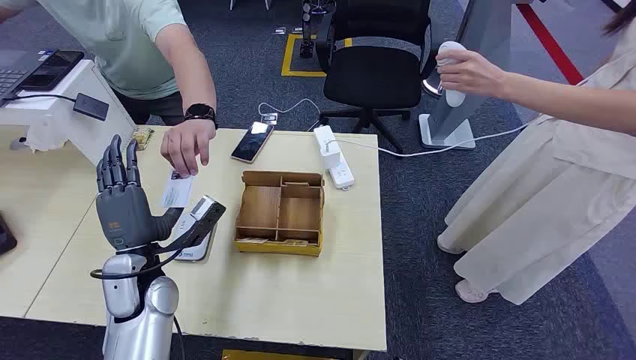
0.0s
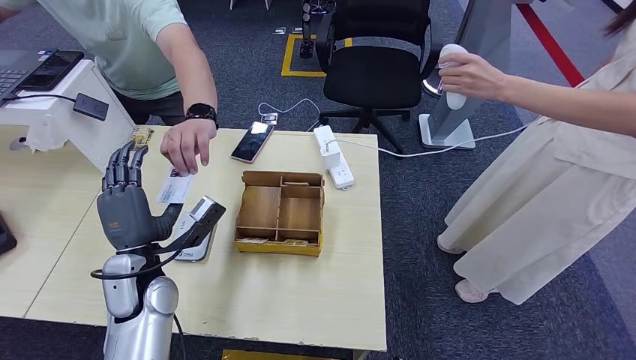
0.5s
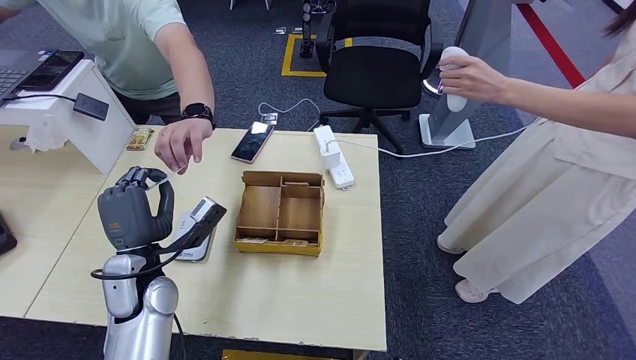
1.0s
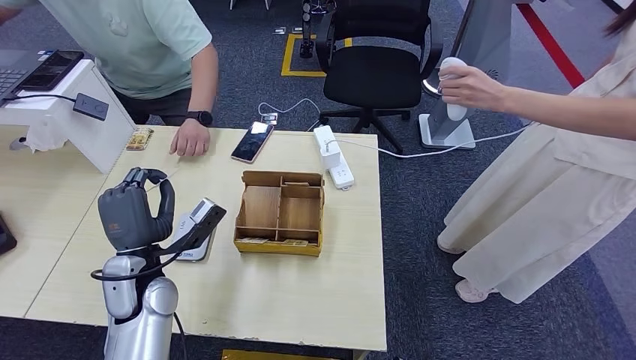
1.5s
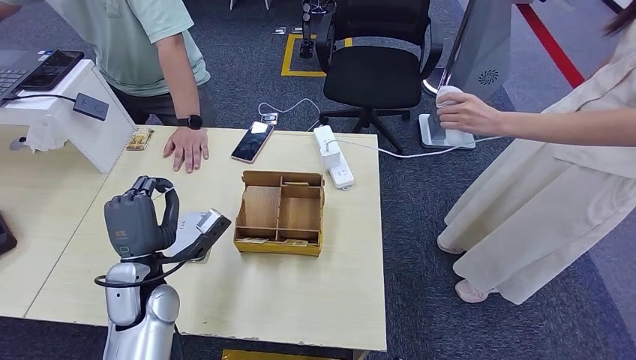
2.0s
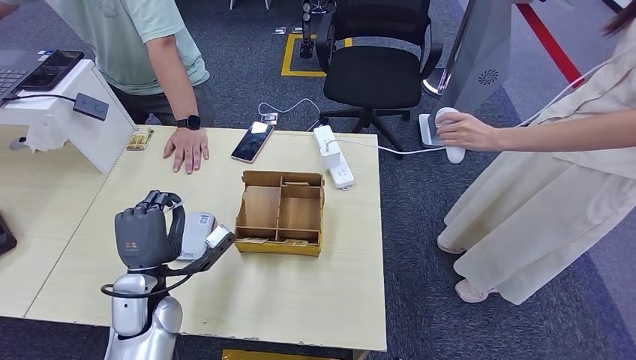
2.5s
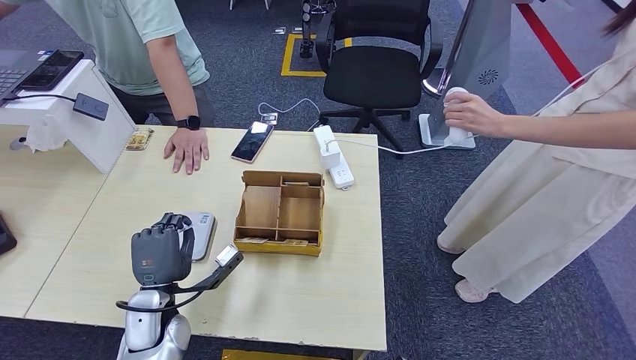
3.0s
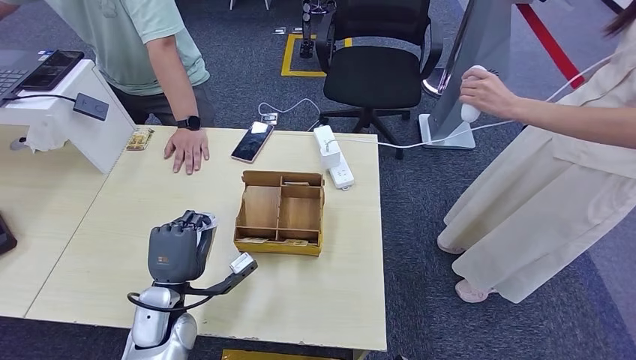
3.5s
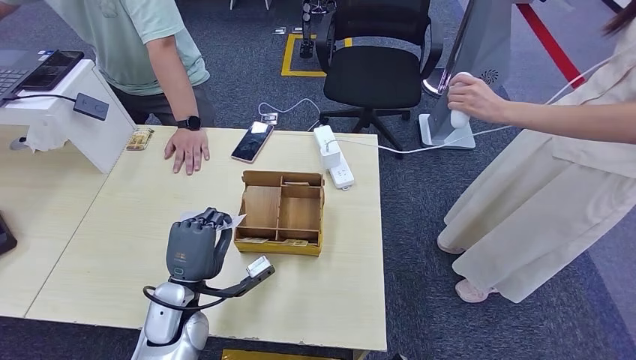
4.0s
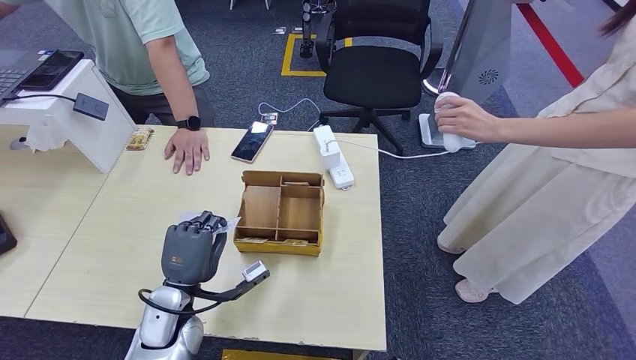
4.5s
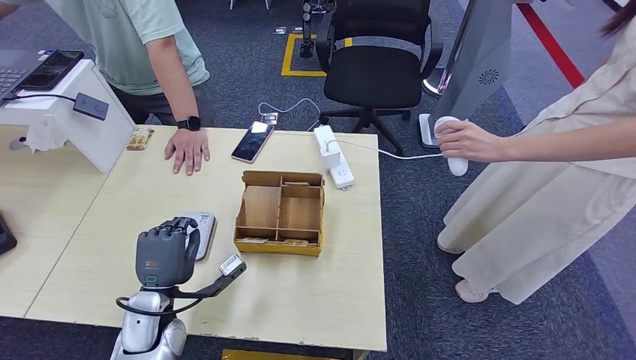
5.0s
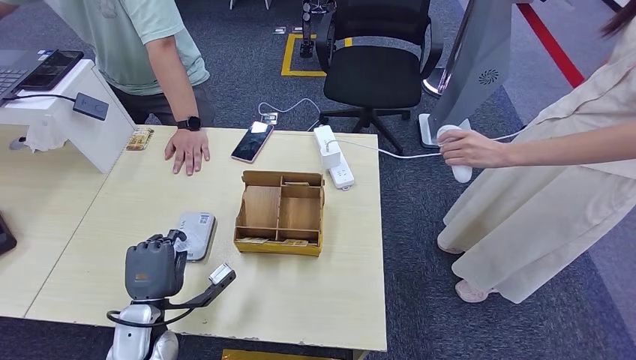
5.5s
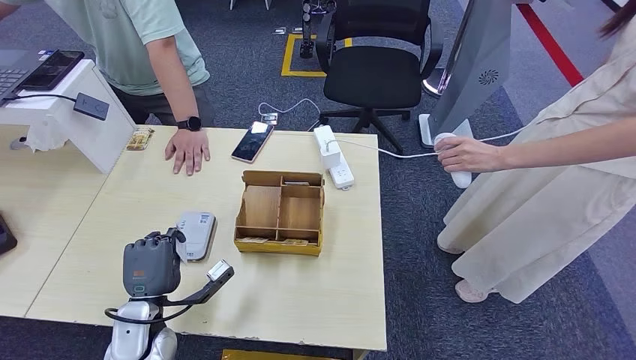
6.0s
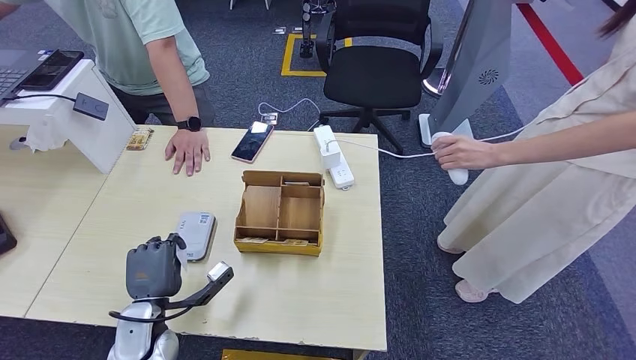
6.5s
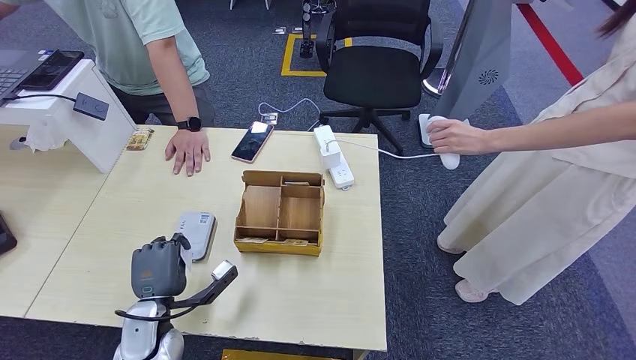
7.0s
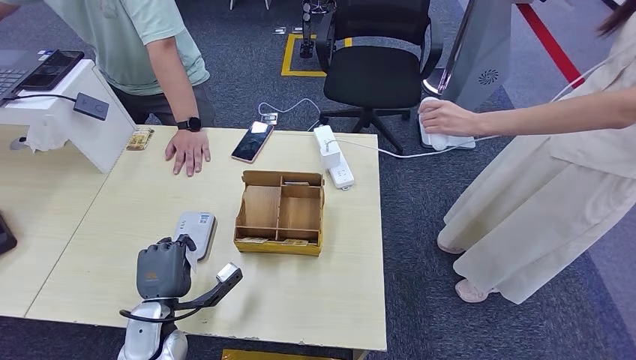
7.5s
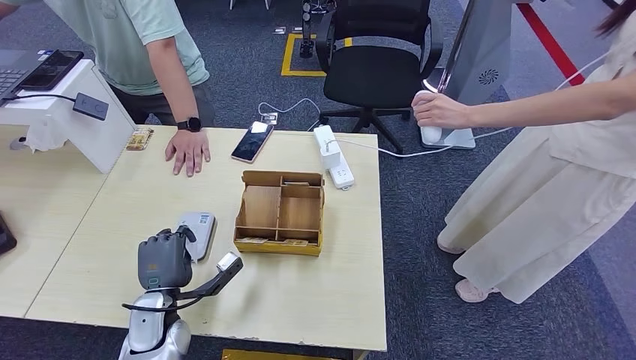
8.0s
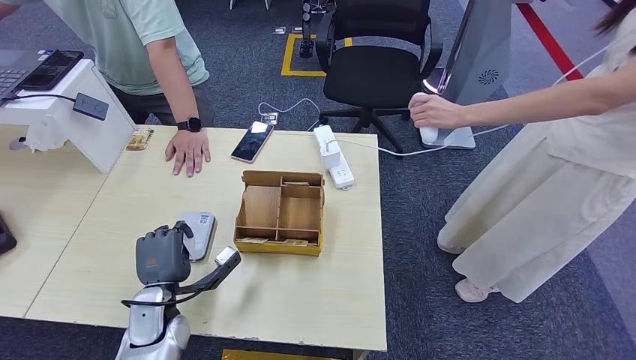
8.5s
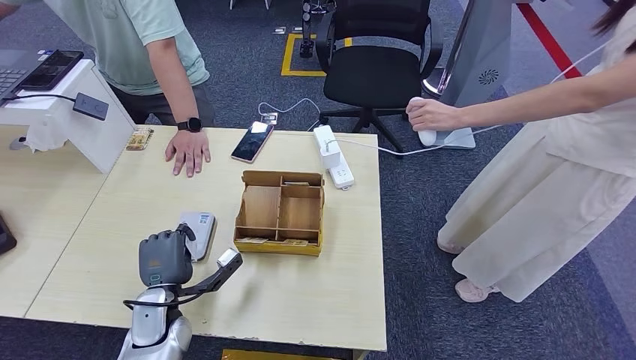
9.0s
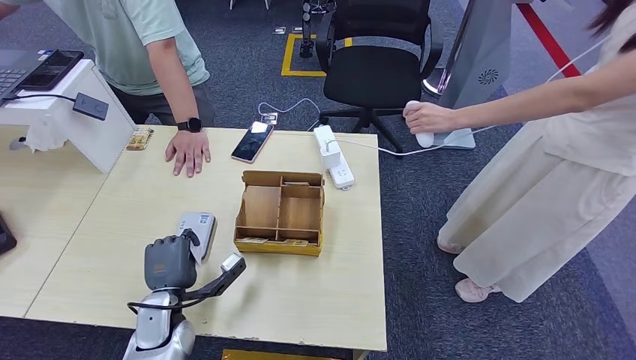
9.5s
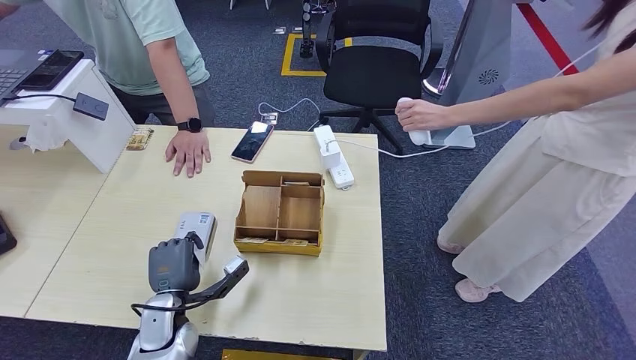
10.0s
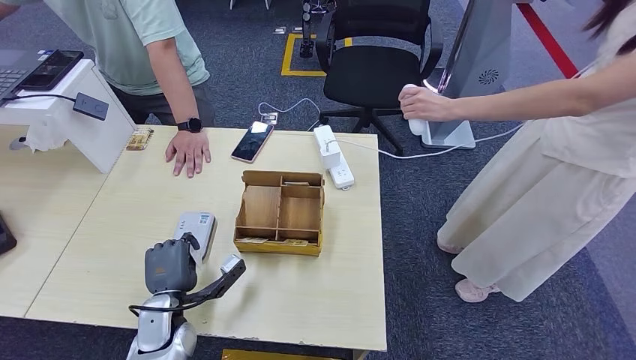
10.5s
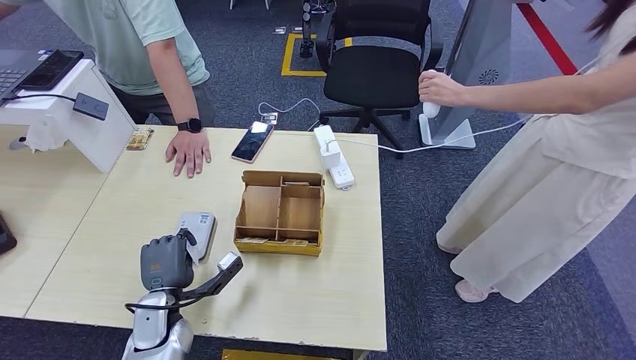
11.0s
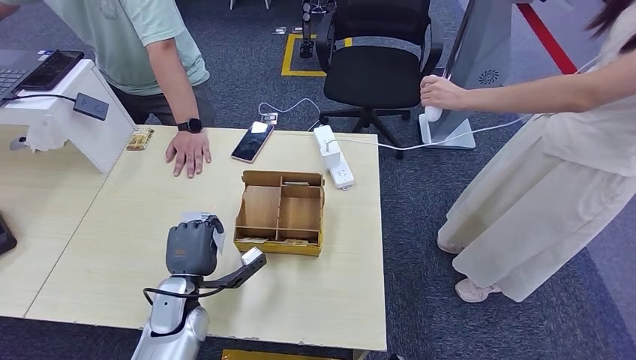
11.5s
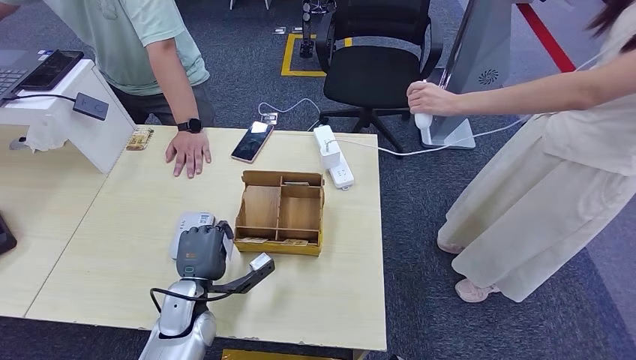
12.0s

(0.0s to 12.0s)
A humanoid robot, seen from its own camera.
Step, 0.0s - 1.5s: Take the ID card from the person's hand.
Step, 2.0s - 10.5s: Place the ID card on the card reader.
2.0s - 4.0s: The left hand moves downward, some 5 cm.
4.0s - 6.0s: The left hand is displaced to the left by roughly 5 cm.
6.0s - 10.0s: The hands make only small movements.
10.0s - 12.0s: The hands stay close to where they were, moving slightly.

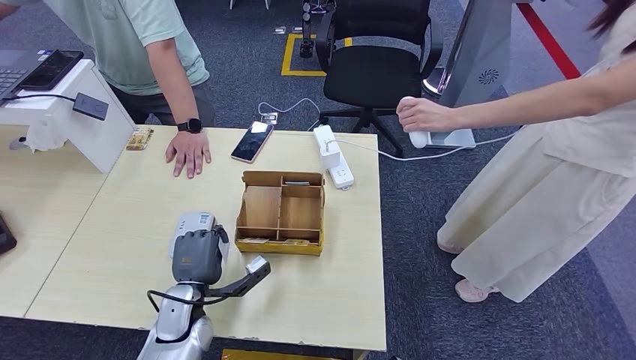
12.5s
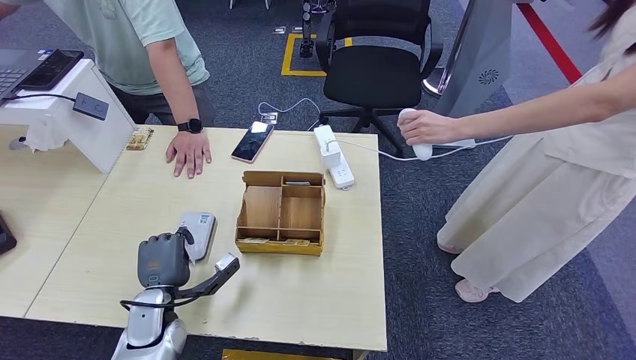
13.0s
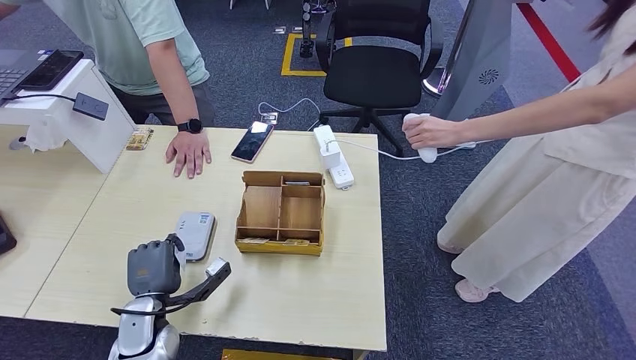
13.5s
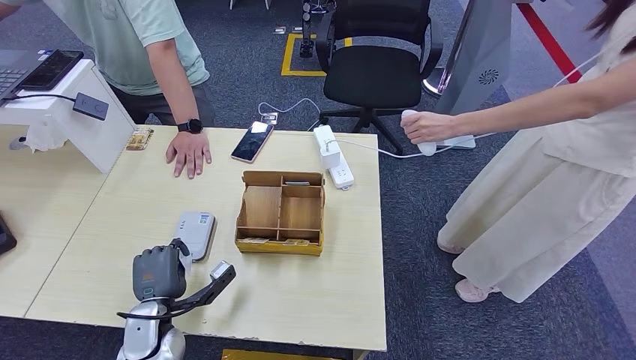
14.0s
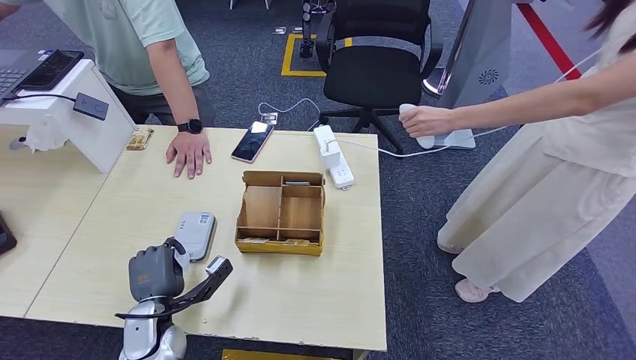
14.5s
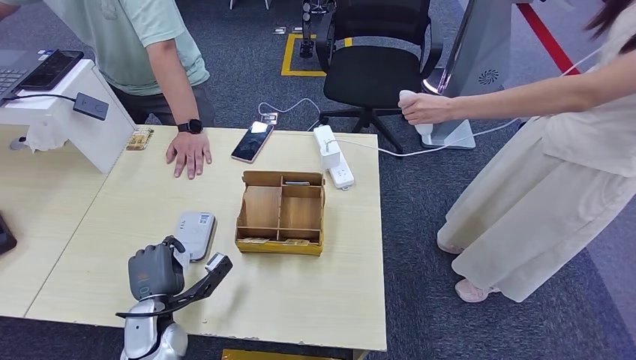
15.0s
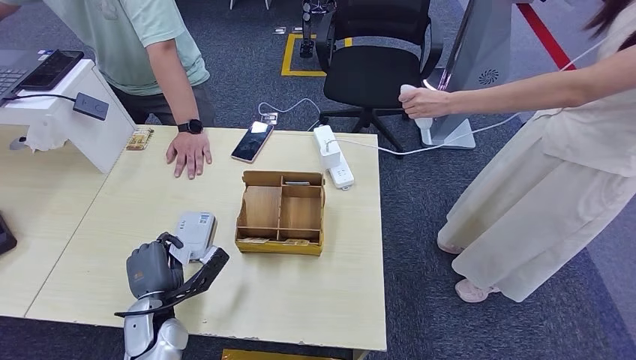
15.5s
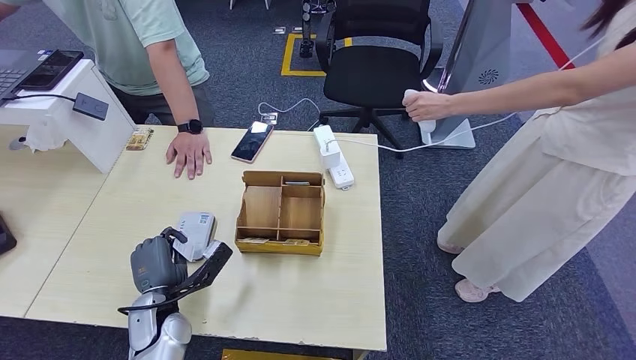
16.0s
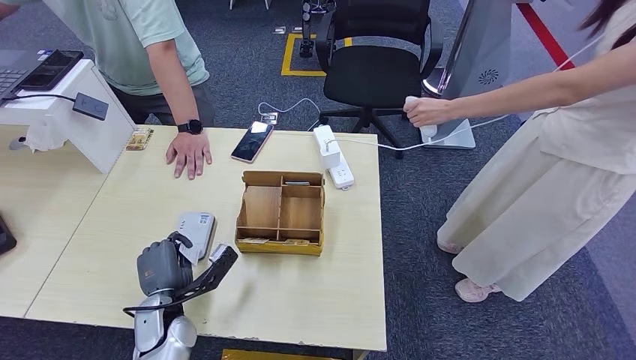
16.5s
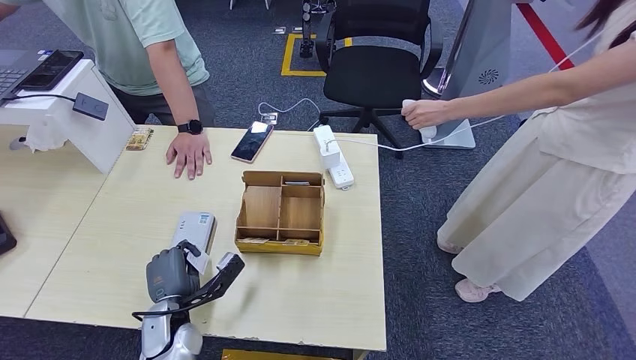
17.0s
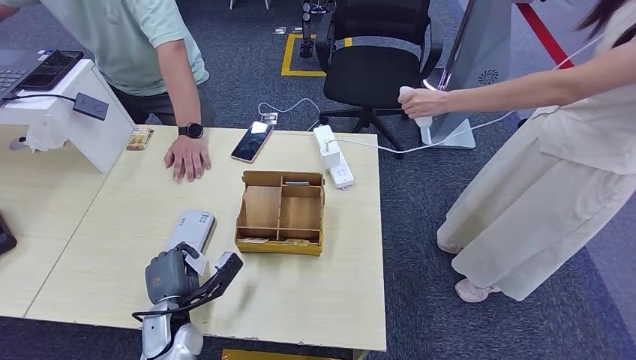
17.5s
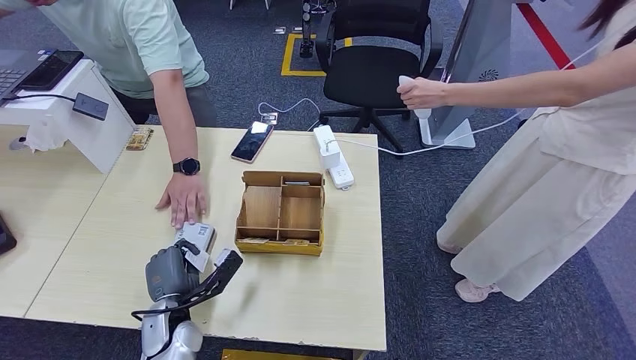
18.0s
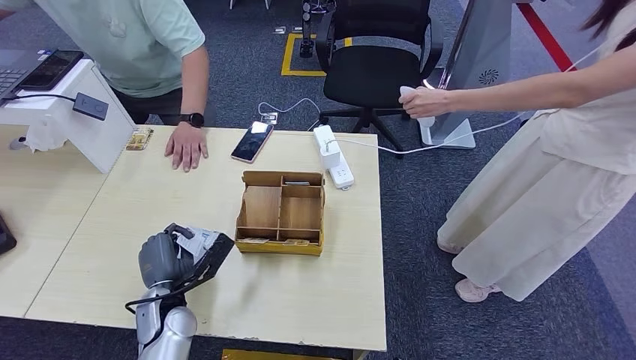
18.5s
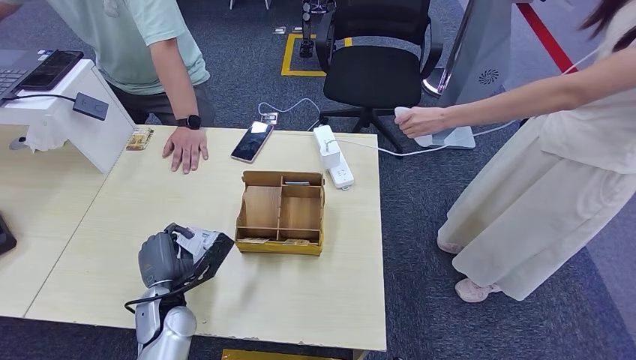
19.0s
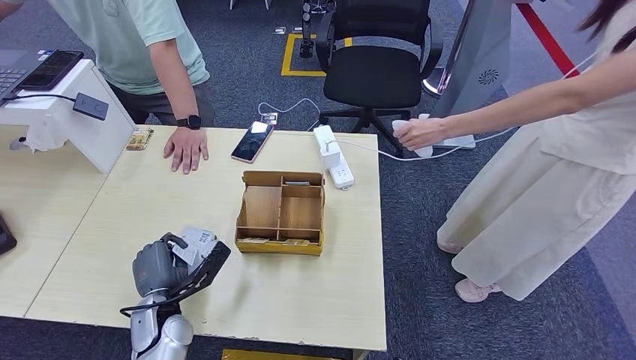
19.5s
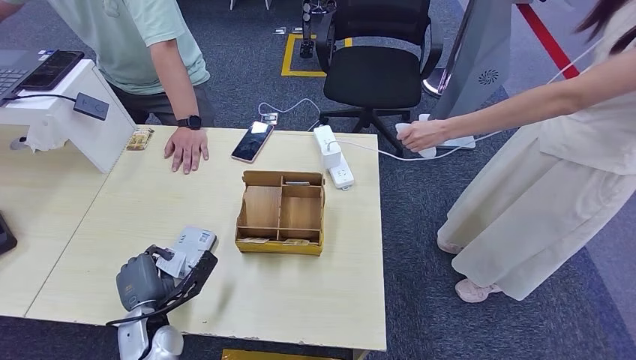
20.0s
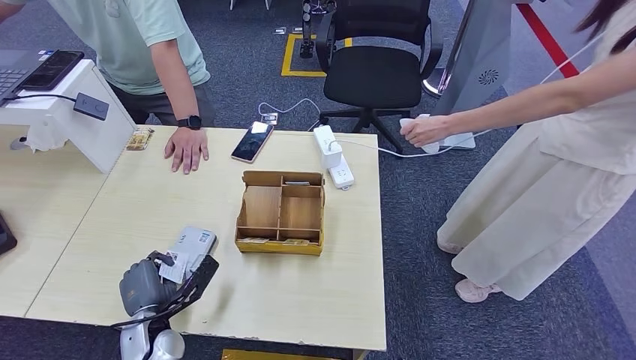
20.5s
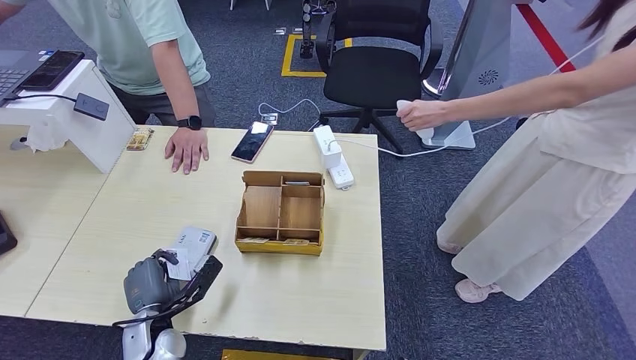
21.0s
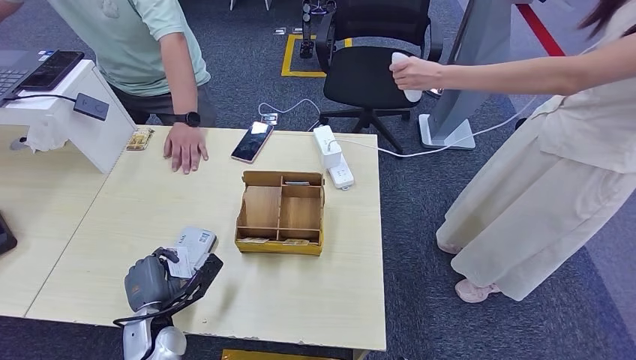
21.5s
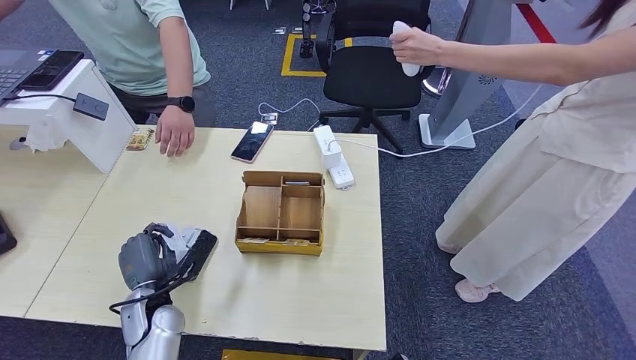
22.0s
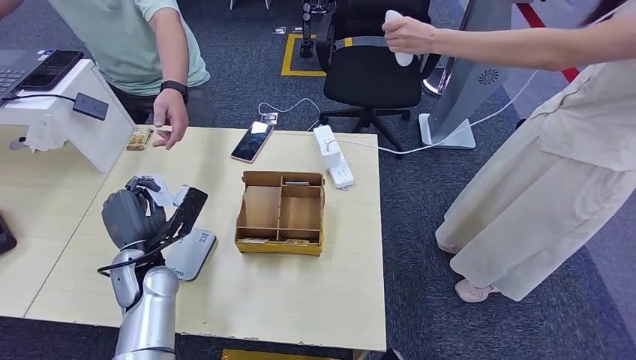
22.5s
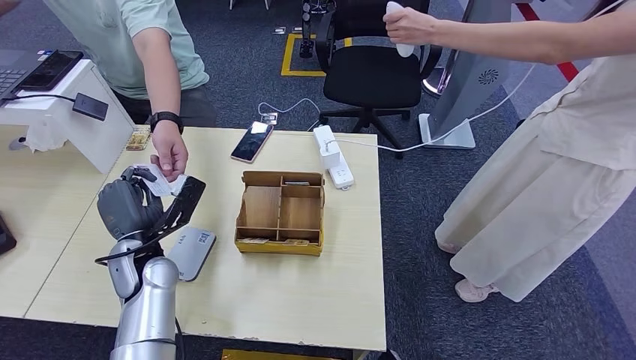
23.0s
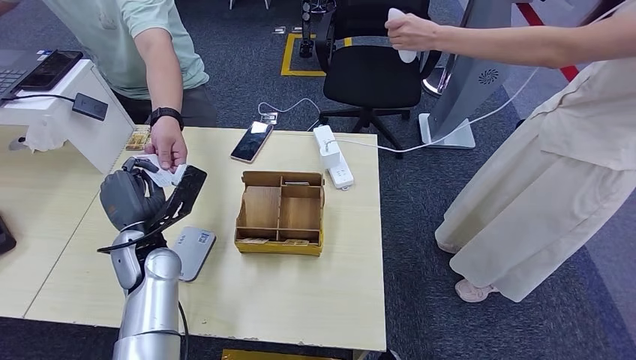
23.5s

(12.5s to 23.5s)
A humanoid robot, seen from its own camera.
12.5s - 14.5s: The left hand moves to the left, roughly 5 cm.
14.5s - 18.0s: There are only small adjustments of the hands.
18.0s - 21.5s: There are only small adjustments of the hands.
21.5s - 23.5s: The left hand is displaced upward and forward by some 15 cm.
